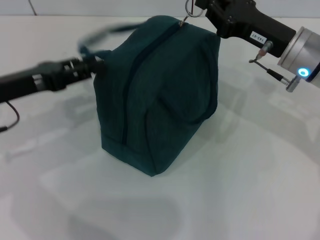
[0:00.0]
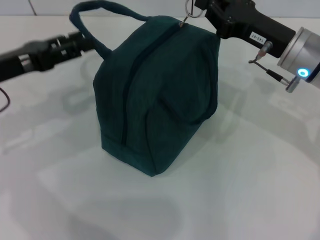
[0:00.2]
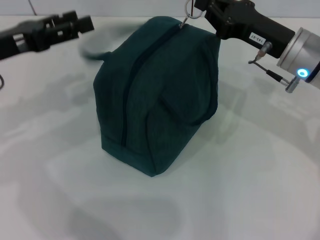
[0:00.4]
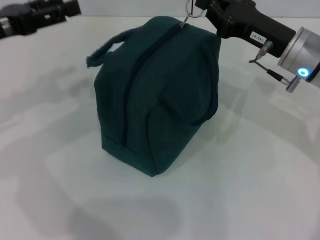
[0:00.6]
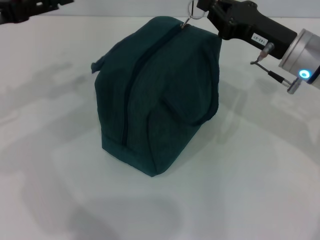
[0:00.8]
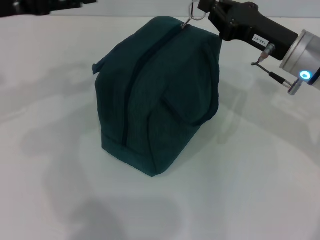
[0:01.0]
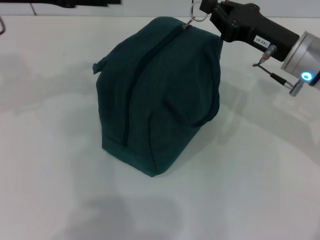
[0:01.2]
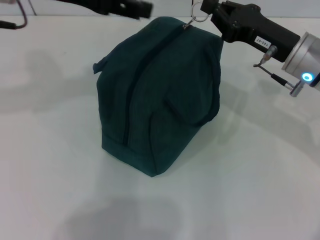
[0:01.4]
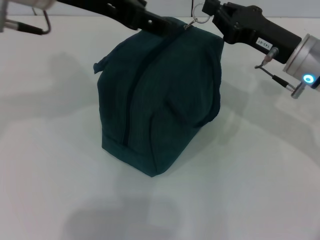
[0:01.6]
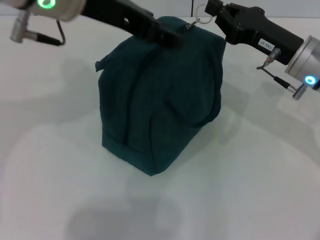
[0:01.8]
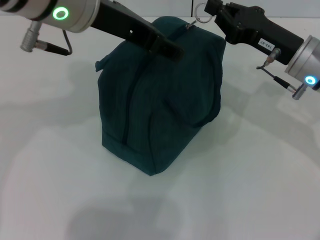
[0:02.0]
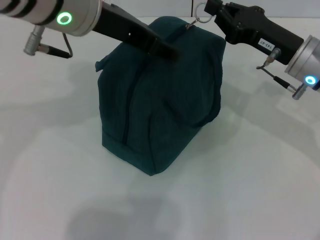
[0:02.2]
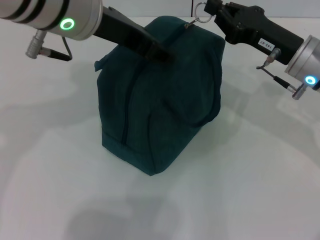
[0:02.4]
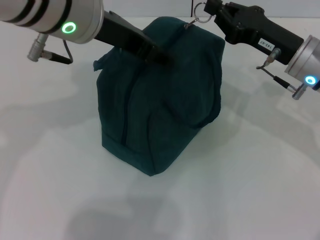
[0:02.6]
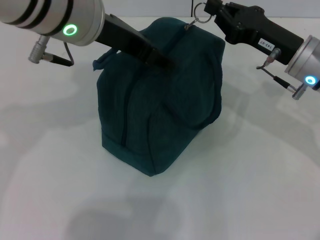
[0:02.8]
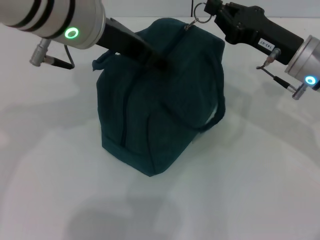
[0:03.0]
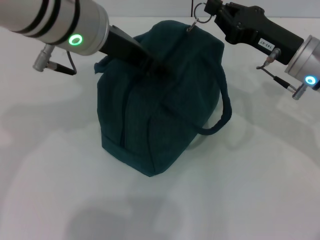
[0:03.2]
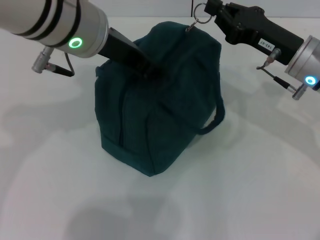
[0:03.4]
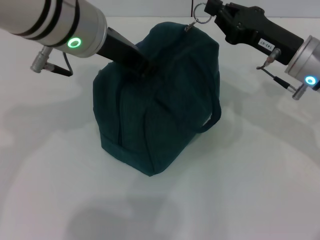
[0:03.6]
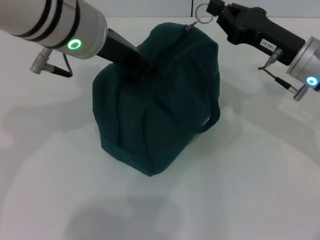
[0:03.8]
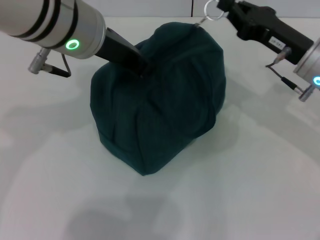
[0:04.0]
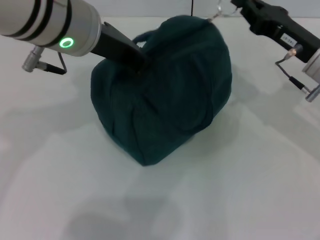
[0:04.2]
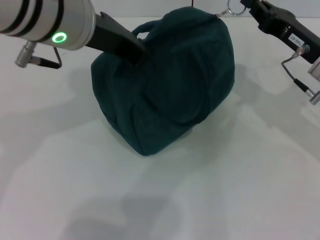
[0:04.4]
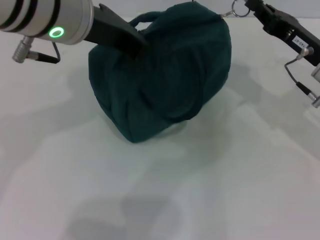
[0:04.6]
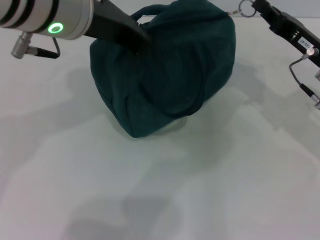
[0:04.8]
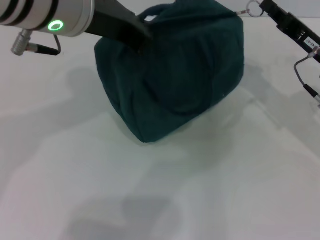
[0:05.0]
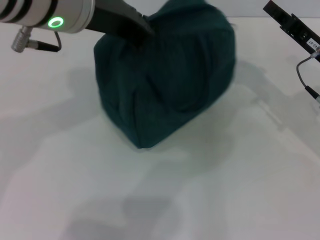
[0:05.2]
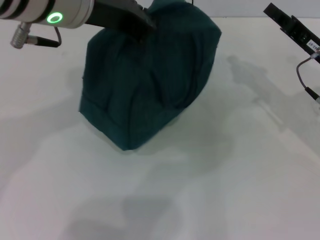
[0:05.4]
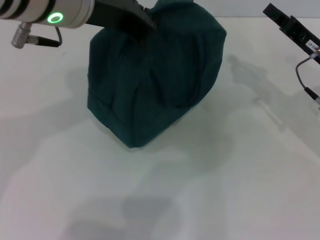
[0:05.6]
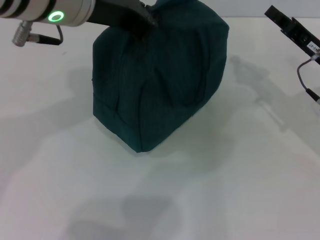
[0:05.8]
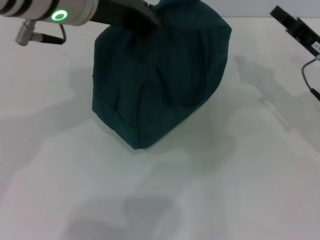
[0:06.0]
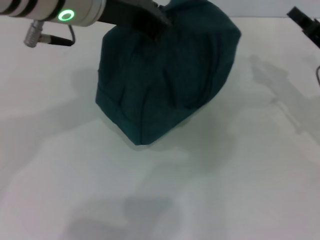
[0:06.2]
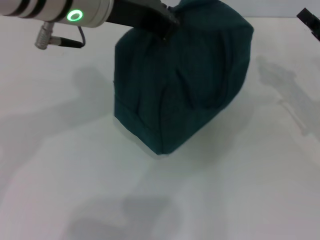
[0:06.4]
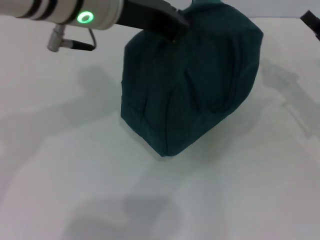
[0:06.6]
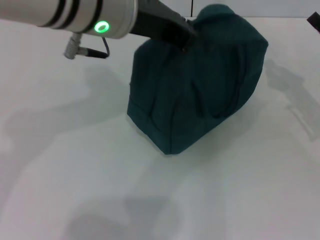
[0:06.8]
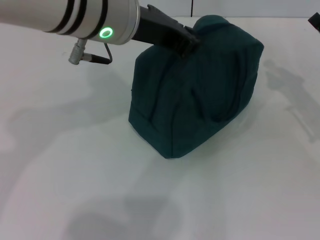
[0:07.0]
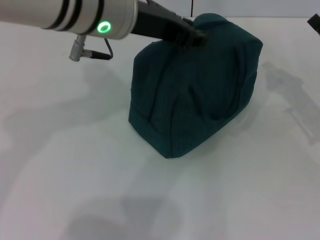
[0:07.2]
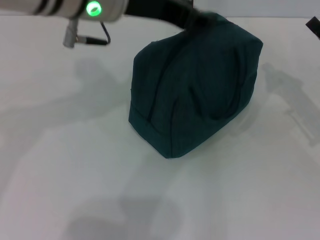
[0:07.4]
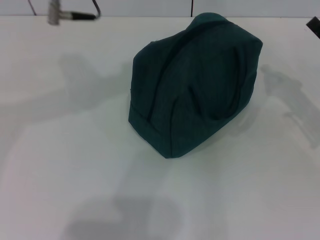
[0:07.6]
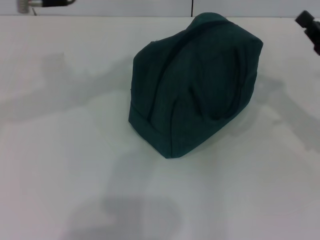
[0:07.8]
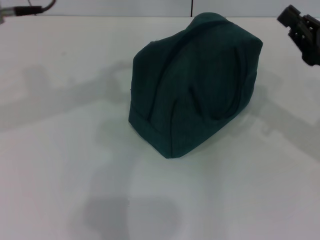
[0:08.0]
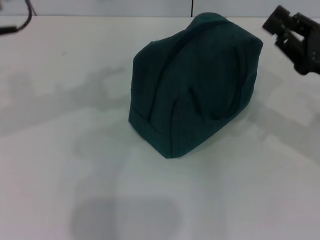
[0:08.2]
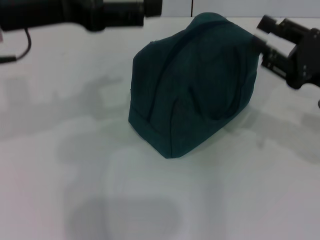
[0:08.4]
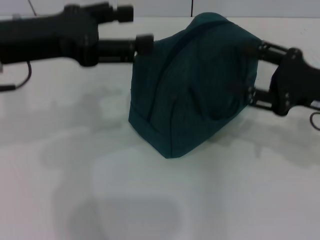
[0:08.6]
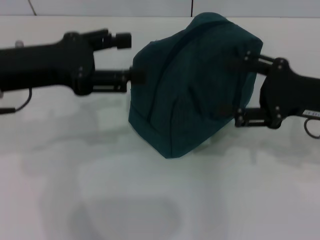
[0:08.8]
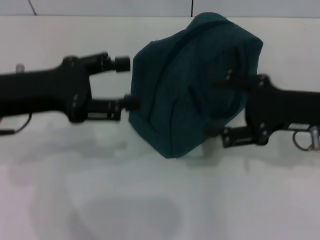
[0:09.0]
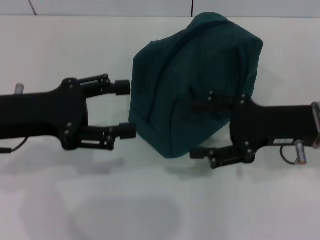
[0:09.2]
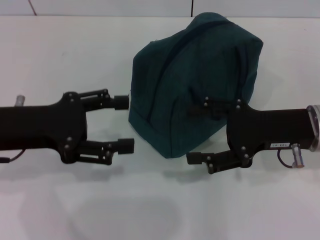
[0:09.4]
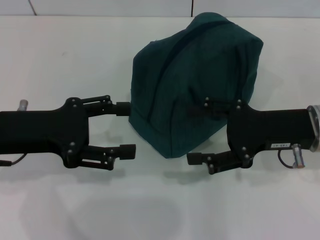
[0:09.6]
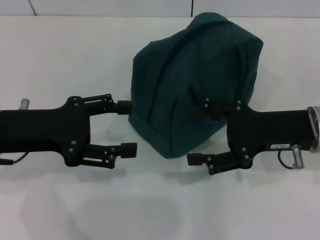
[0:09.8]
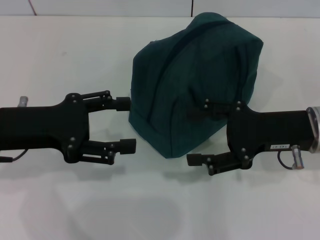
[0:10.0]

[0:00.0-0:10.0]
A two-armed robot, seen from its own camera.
Step, 0:00.0 to 0:05.0: Zip up the lunch bag with your right hand.
Step, 0:05.2 to 0:07.2: Hold the lunch bag with your left hand.
0:00.0 to 0:01.4: The left gripper travels upward and to the right by some 20 cm, and opens up.
0:01.4 to 0:02.8: The left gripper moves to the right, some 10 cm.
0:02.8 to 0:04.2: The left gripper closes up.
0:05.8 to 0:07.2: The right gripper moves approximately 5 cm.
0:07.2 to 0:08.6: The left gripper heads to the left, covering about 15 cm, and opens up. The right gripper ends up some 5 cm from where it was, and opens.
0:08.6 to 0:10.0: The right gripper moves roughly 5 cm, and opens its fingers. The left gripper goes some 10 cm downward.
